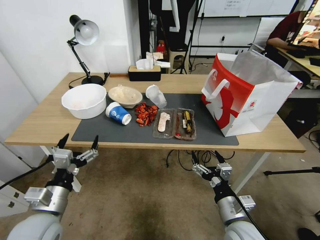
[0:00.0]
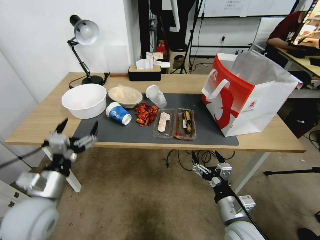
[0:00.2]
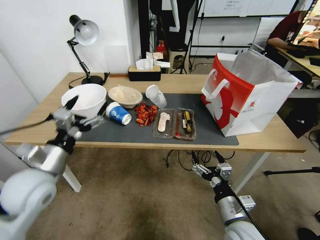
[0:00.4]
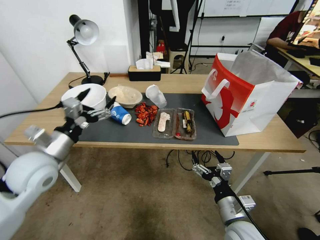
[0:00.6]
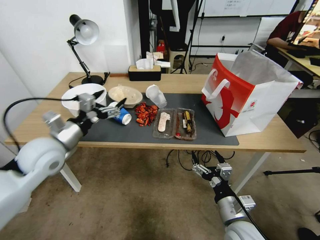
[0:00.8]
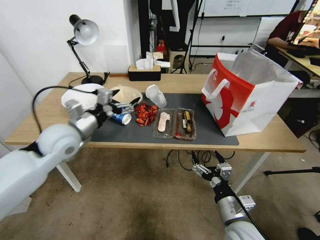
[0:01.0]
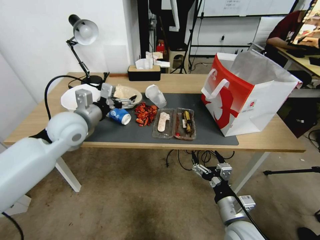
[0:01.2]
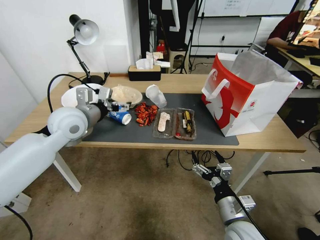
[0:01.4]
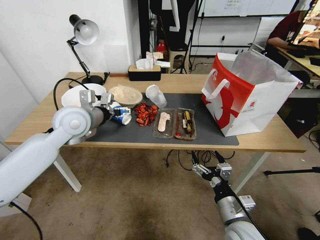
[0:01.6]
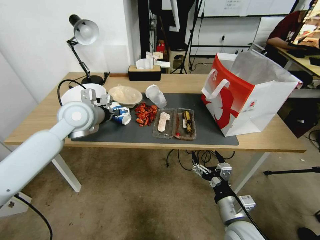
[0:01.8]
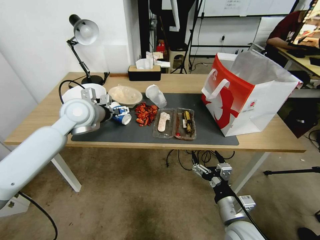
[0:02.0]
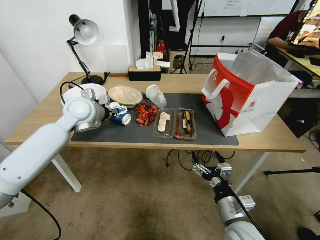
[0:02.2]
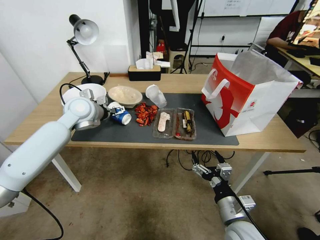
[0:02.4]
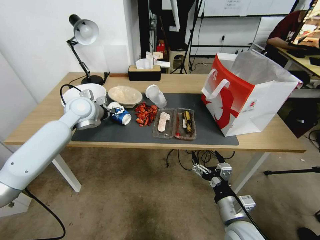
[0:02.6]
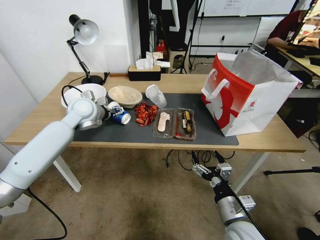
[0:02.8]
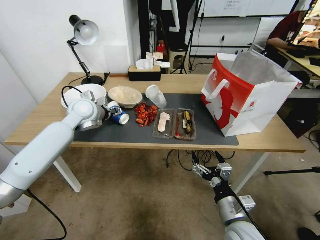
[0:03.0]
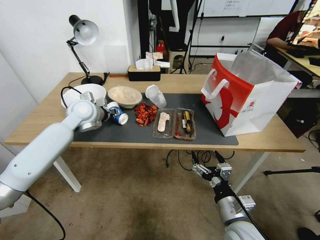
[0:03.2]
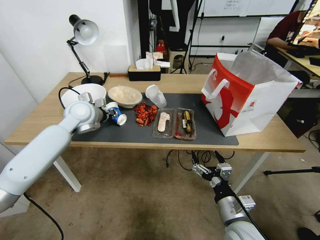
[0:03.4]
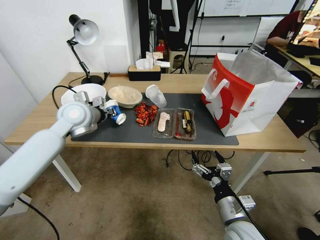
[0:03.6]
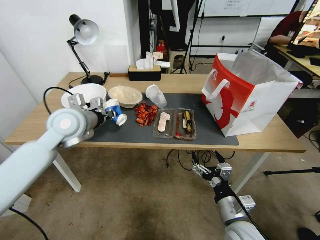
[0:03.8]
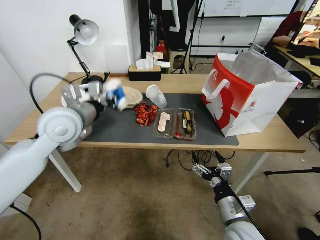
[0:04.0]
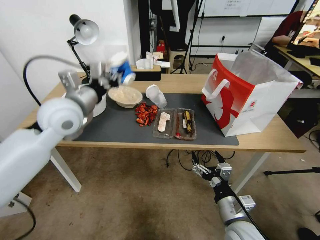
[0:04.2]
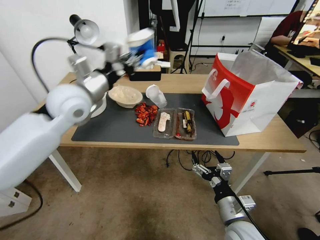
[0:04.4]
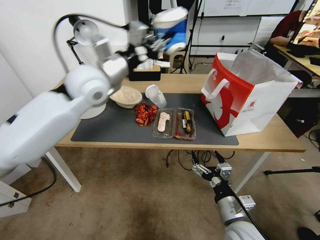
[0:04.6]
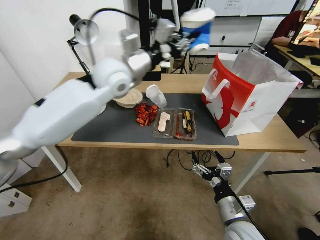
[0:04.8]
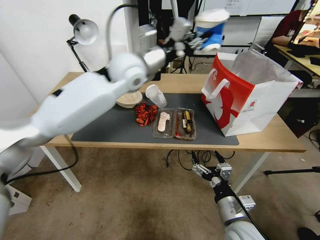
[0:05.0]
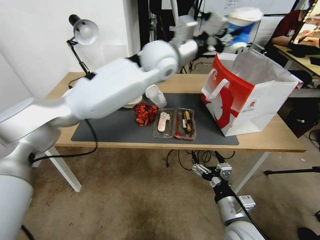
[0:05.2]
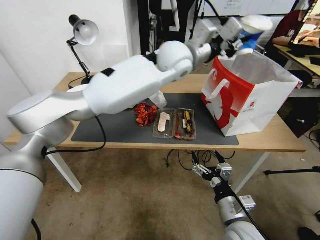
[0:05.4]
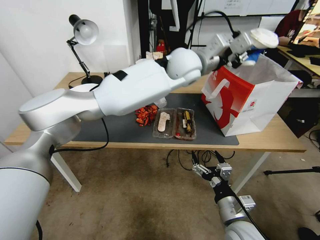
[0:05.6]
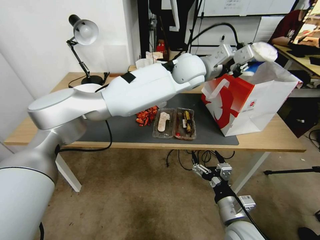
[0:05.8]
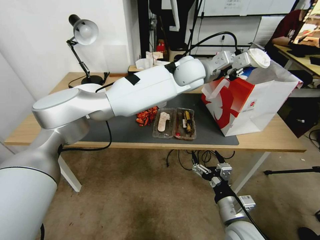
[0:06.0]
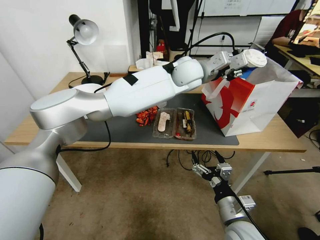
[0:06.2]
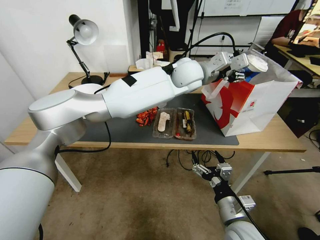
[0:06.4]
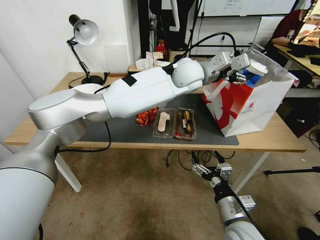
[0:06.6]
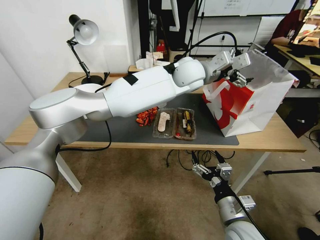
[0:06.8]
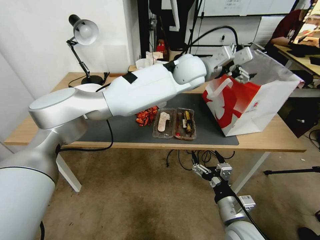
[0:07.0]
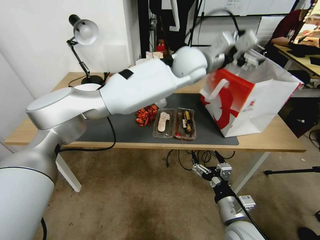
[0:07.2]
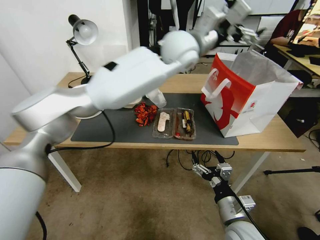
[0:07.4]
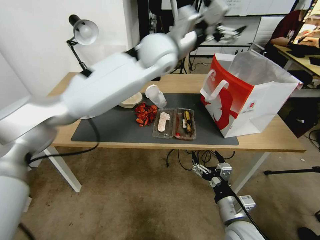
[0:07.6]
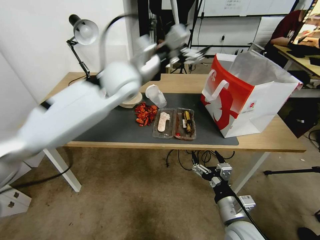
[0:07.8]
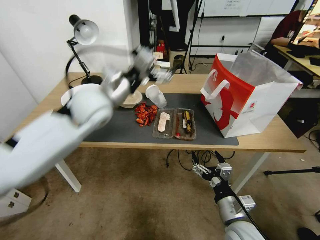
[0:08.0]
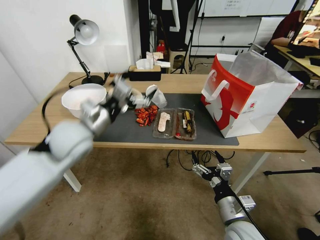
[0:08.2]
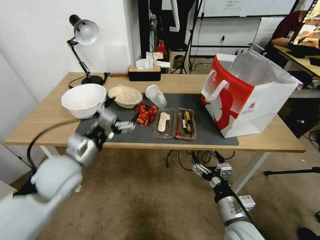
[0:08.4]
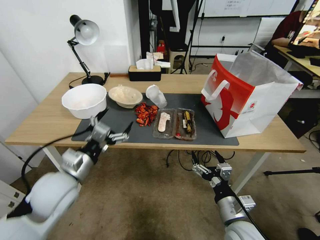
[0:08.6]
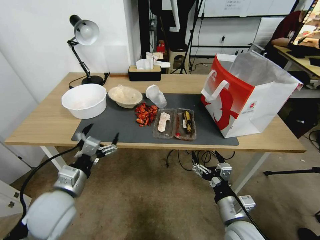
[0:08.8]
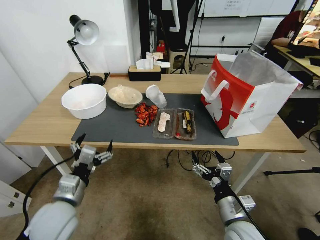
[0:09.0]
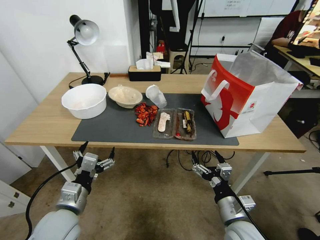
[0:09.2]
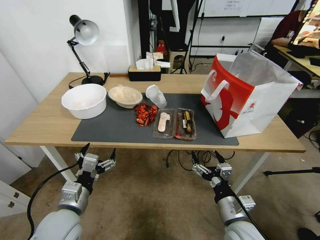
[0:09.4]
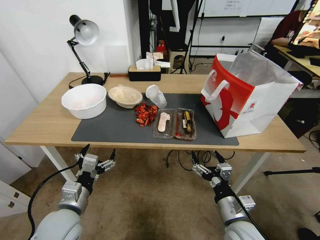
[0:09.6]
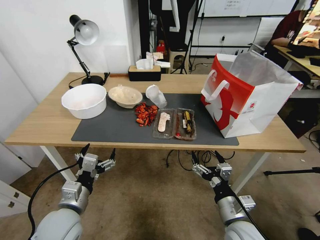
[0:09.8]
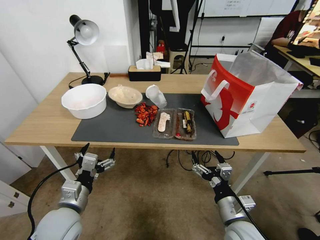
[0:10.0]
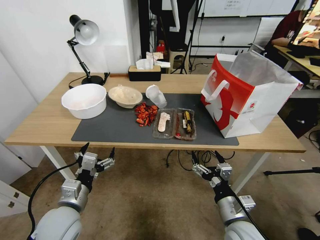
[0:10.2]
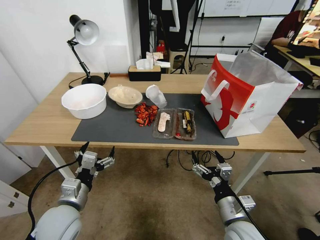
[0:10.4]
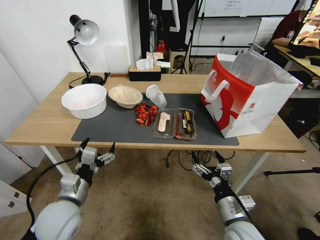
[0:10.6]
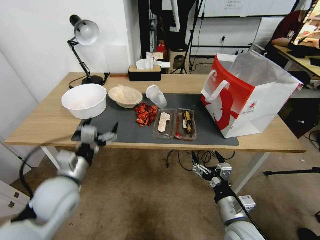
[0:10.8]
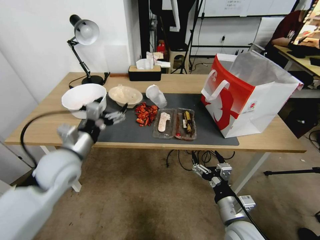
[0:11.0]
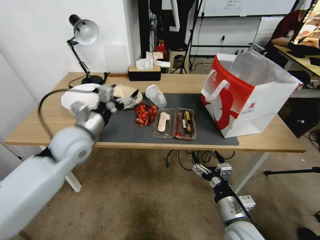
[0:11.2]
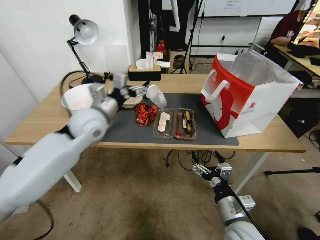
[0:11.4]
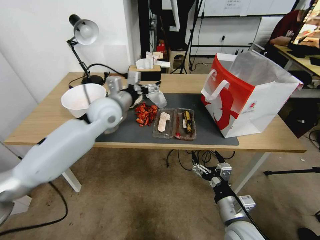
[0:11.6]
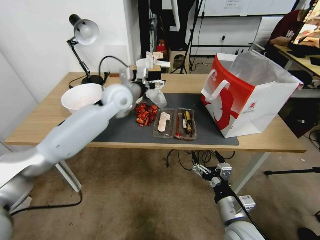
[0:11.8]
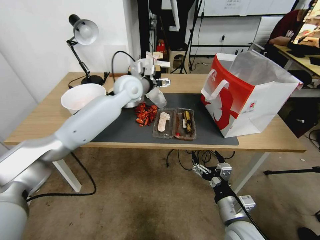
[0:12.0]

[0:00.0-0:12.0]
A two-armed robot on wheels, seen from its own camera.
0:00.0 to 0:01.6: The left gripper is displaced forward and upward by about 25 cm.
0:01.6 to 0:03.0: The left gripper moves forward, approximately 10 cm, and closes.
0:03.0 to 0:04.4: The left gripper heads upward and backward, covering about 15 cm, and closes.
0:04.4 to 0:06.0: The left gripper shifts roughly 35 cm to the right and forward.
0:06.0 to 0:07.6: The left gripper is displaced to the left and upward by roughly 15 cm, and opens its fingers.
0:07.6 to 0:09.0: The left gripper heads backward, downward and to the left, covering some 50 cm.
0:09.0 to 0:10.4: There are only small adjustments of the grippers.
0:10.4 to 0:12.0: The left gripper travels forward, upward and to the right by about 40 cm.

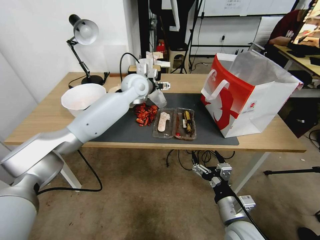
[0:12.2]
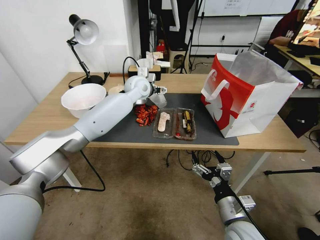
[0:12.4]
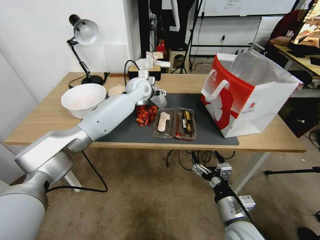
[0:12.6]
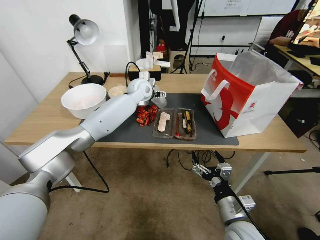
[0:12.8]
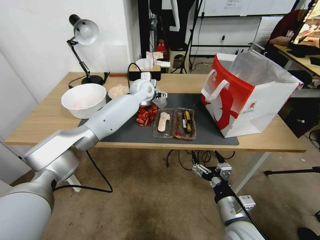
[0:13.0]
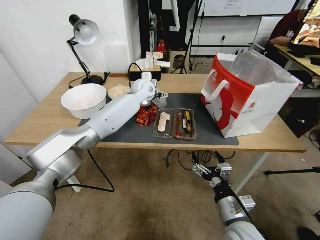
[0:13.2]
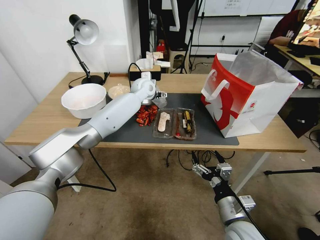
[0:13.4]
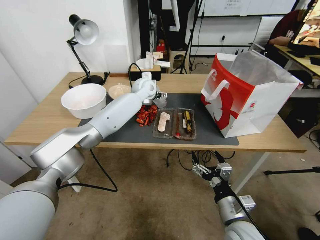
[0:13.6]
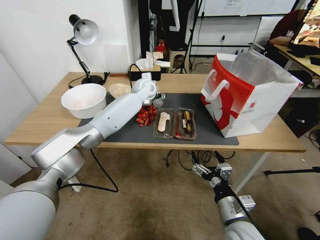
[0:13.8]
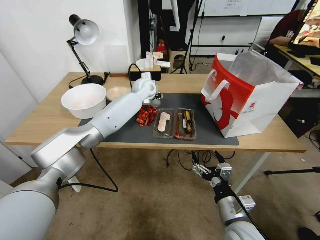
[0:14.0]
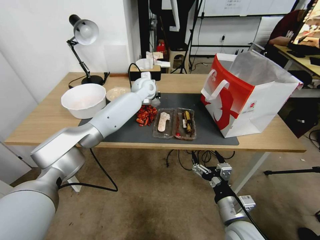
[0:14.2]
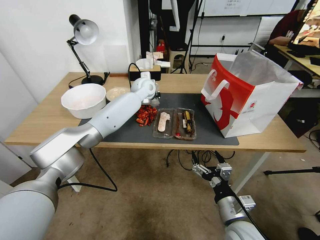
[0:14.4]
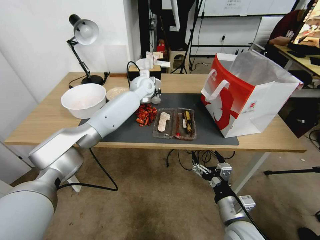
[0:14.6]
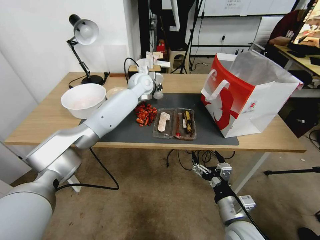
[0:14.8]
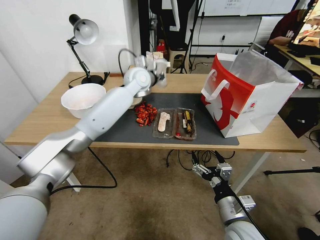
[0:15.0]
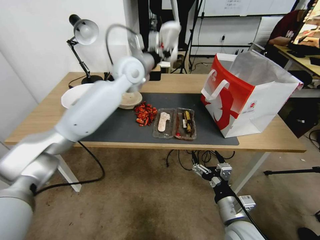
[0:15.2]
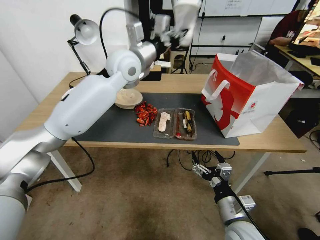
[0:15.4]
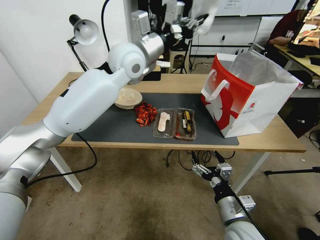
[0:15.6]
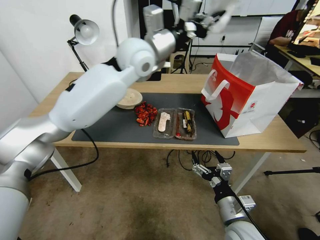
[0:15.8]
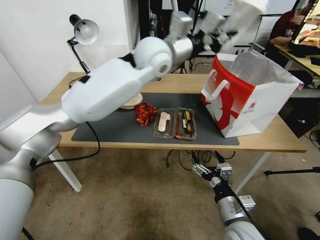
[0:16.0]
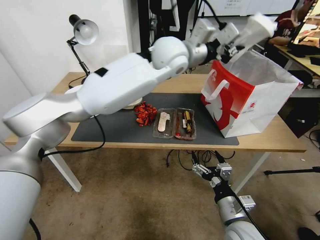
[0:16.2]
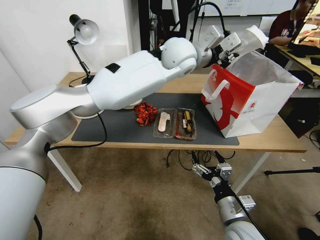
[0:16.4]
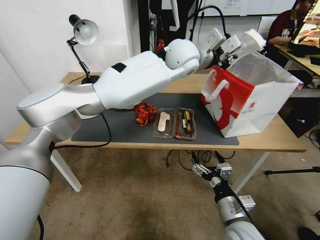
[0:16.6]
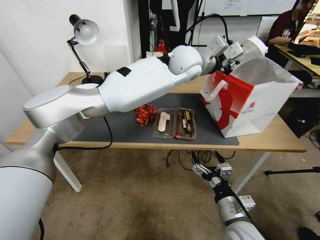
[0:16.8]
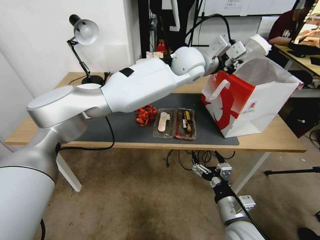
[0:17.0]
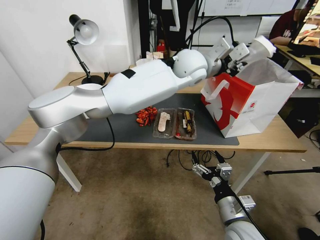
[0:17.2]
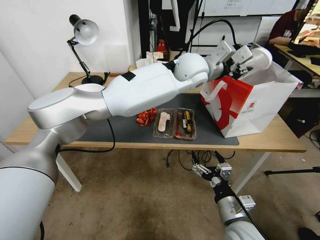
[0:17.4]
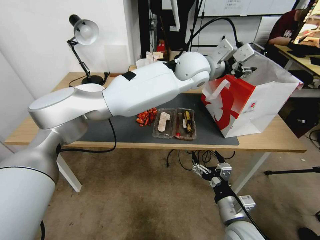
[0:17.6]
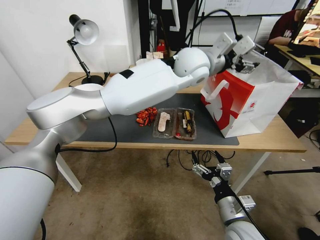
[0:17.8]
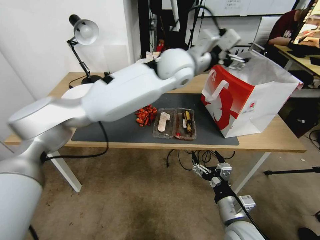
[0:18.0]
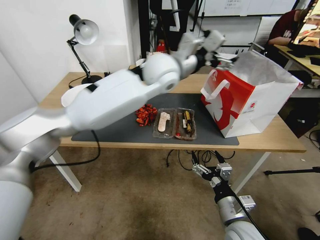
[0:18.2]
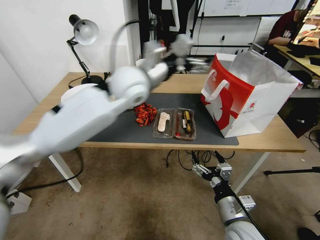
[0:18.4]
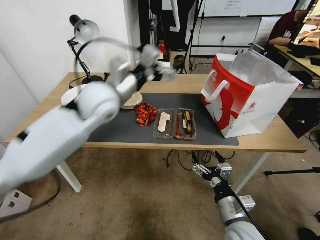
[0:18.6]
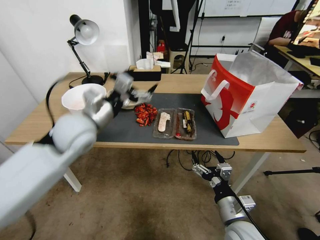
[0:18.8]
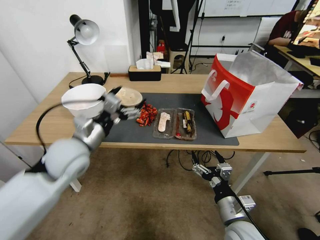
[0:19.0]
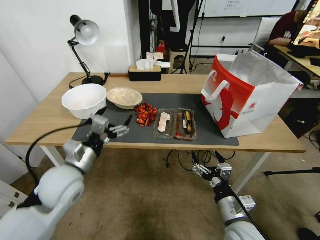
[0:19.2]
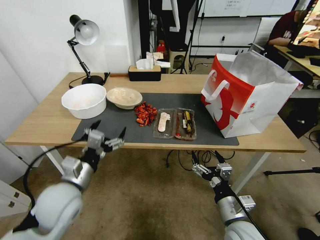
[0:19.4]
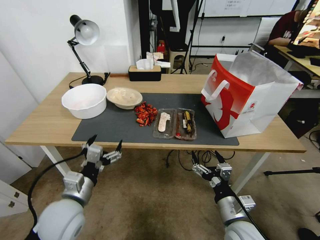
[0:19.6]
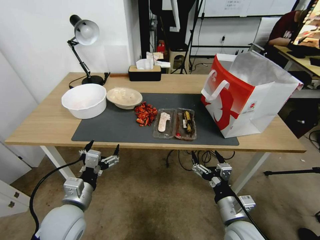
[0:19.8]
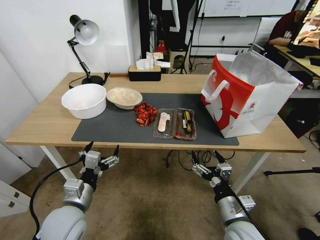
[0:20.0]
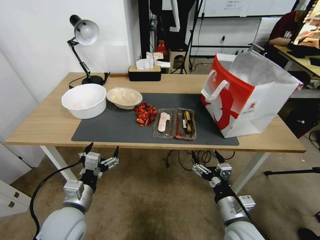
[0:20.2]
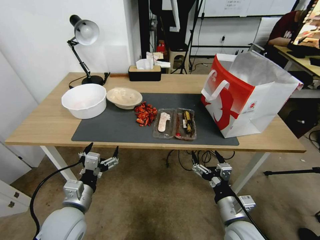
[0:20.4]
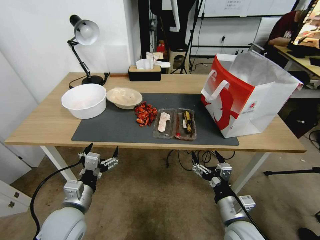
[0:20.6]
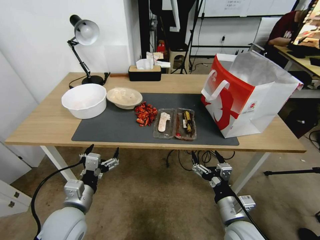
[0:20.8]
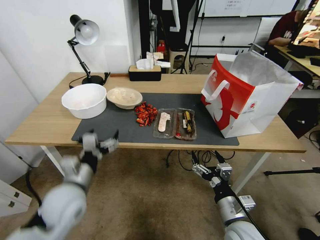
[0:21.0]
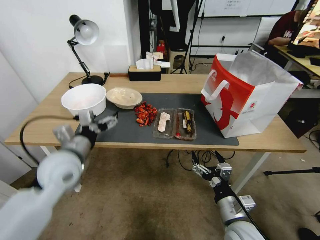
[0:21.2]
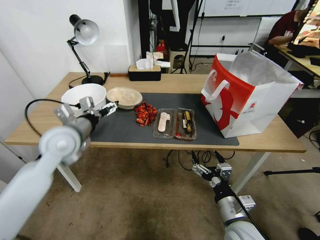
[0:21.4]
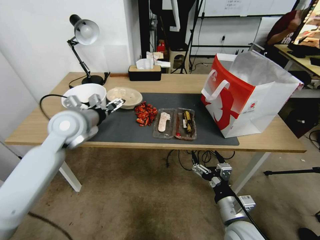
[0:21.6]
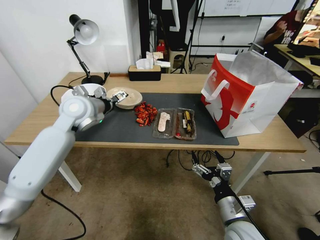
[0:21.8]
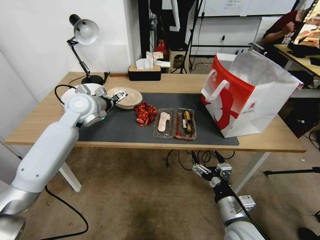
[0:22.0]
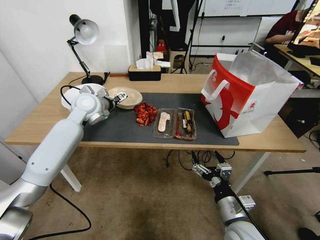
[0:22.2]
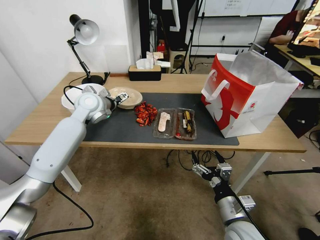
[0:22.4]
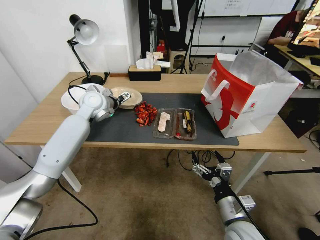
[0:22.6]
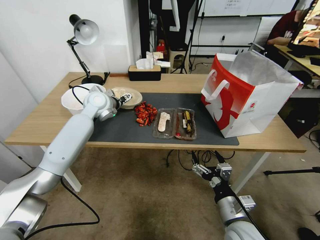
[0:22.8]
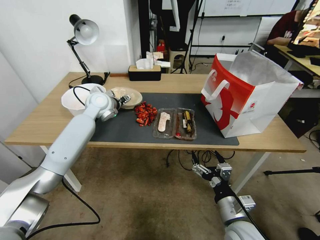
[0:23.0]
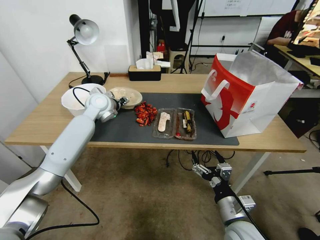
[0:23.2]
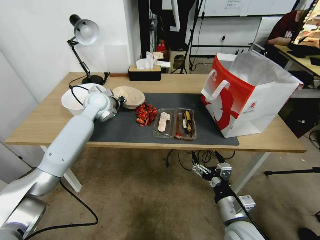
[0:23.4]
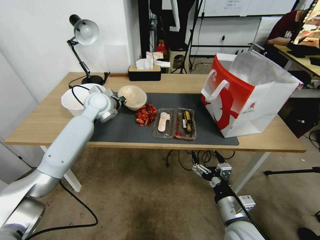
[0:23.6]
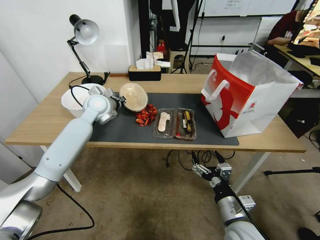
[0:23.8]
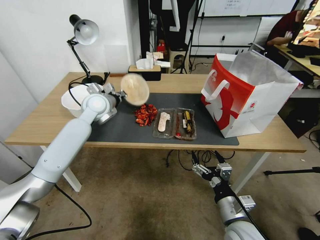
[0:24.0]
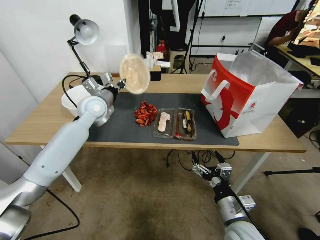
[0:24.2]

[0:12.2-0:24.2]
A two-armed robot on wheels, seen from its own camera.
0:12.2 to 0:13.8: The left gripper moves forward, roughly 5 cm.
0:13.8 to 0:15.2: The left gripper is displaced upward and backward by about 15 cm, and closes up.
0:15.2 to 0:16.6: The left gripper moves to the right, approximately 15 cm.
0:16.6 to 0:18.2: The left gripper shifts some 10 cm to the left and backward, and opens its fingers.
0:18.2 to 0:19.8: The left gripper shifts some 50 cm backward, downward and to the left.
0:19.8 to 0:21.2: The left gripper moves upward and forward, approximately 15 cm.
0:21.2 to 0:22.6: The left gripper heads forward, covering about 25 cm.
0:22.6 to 0:24.2: The left gripper closes up.
